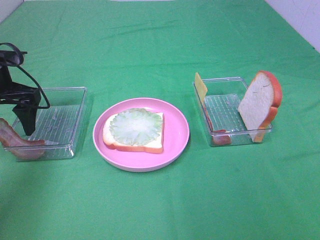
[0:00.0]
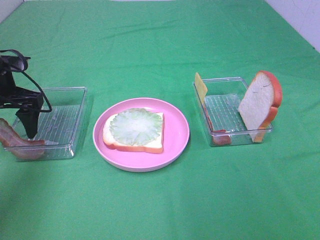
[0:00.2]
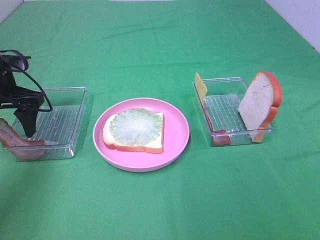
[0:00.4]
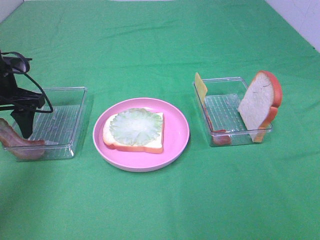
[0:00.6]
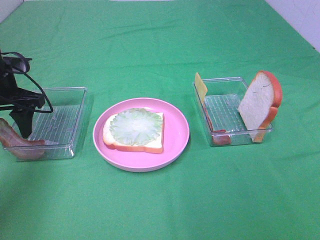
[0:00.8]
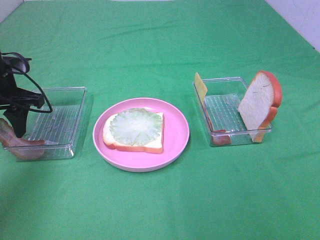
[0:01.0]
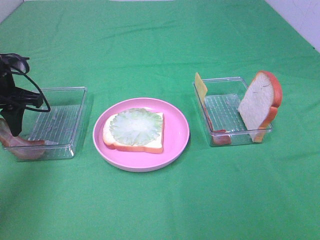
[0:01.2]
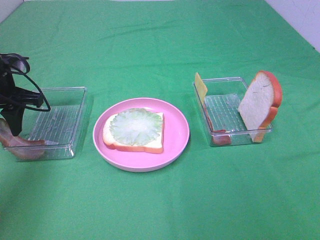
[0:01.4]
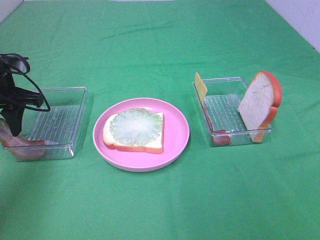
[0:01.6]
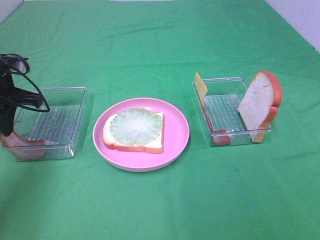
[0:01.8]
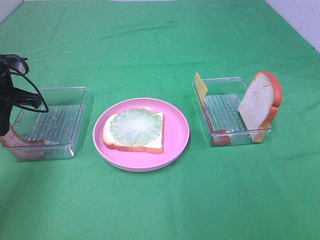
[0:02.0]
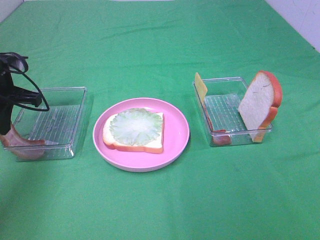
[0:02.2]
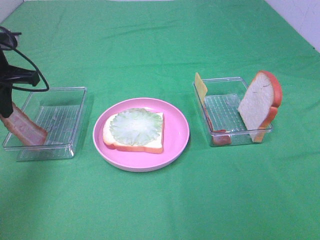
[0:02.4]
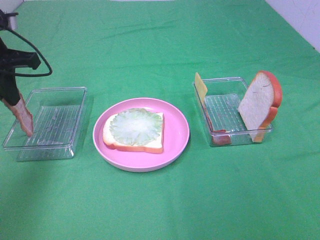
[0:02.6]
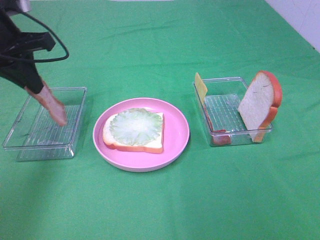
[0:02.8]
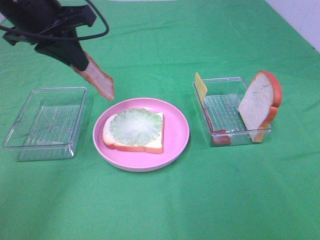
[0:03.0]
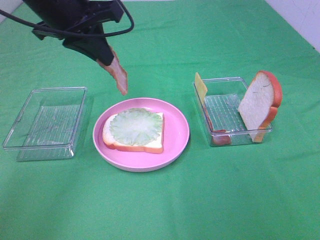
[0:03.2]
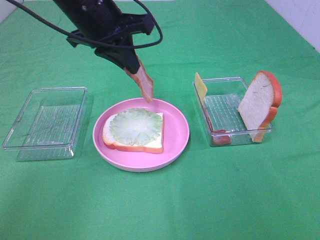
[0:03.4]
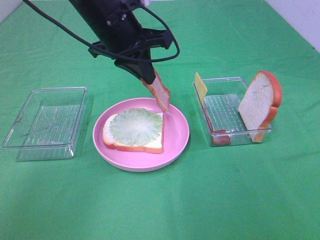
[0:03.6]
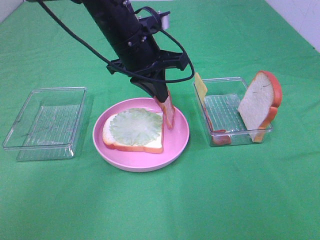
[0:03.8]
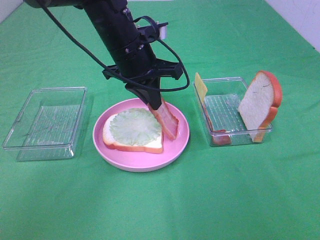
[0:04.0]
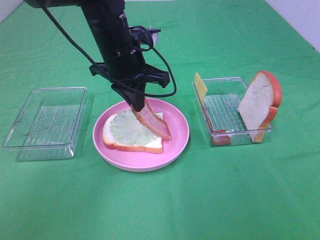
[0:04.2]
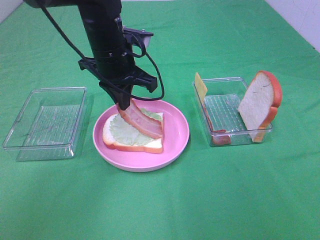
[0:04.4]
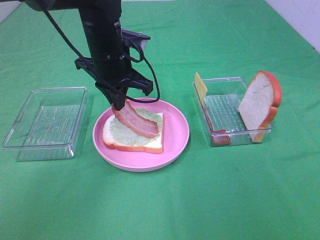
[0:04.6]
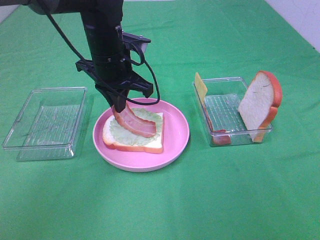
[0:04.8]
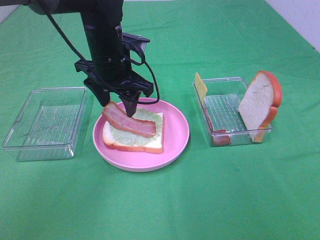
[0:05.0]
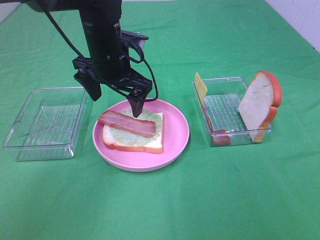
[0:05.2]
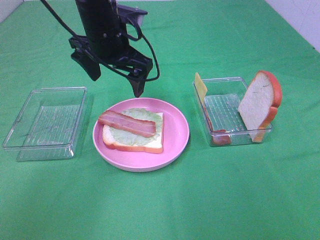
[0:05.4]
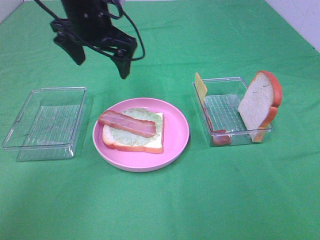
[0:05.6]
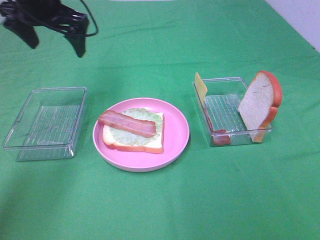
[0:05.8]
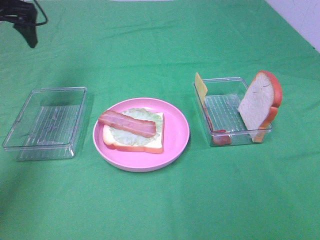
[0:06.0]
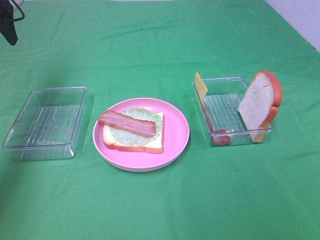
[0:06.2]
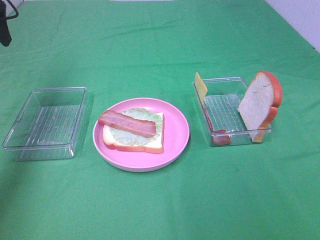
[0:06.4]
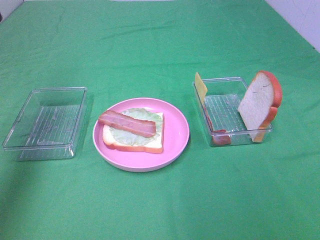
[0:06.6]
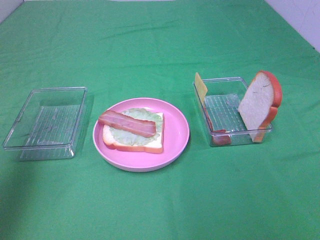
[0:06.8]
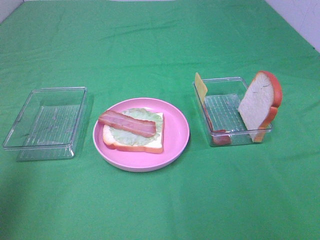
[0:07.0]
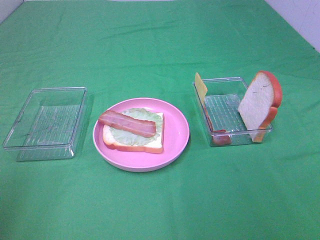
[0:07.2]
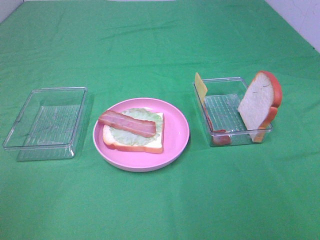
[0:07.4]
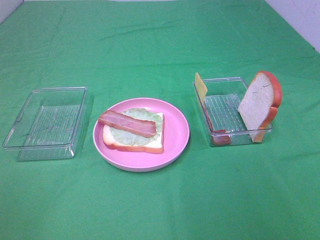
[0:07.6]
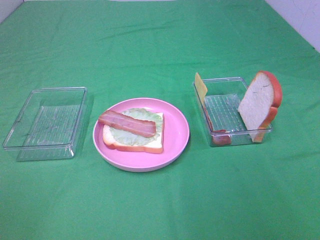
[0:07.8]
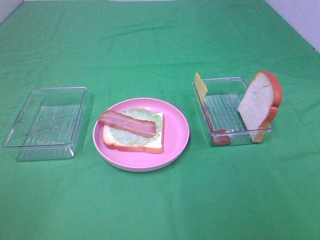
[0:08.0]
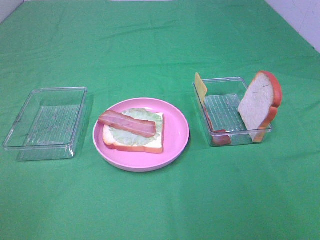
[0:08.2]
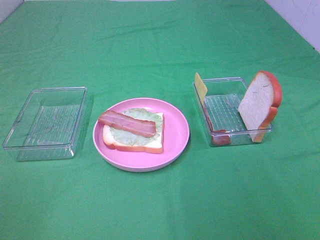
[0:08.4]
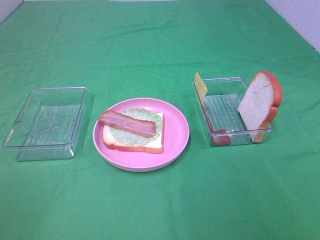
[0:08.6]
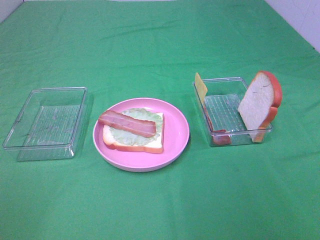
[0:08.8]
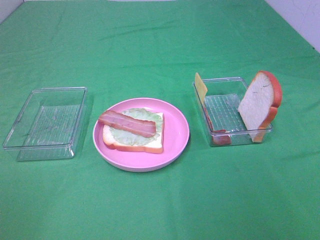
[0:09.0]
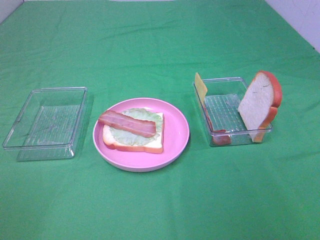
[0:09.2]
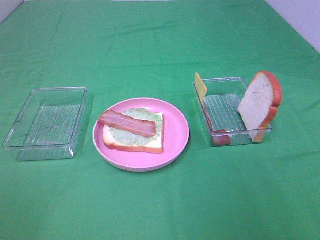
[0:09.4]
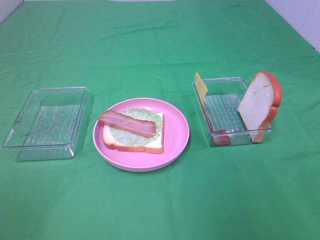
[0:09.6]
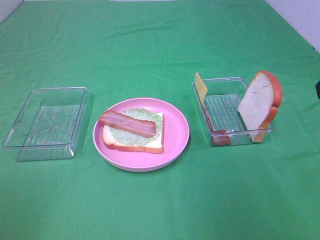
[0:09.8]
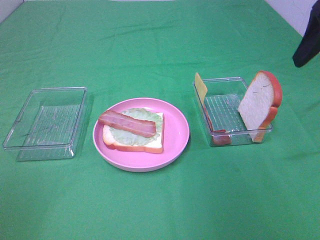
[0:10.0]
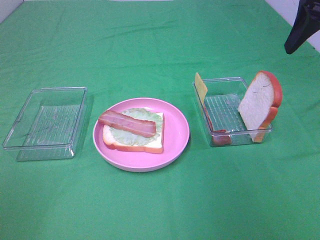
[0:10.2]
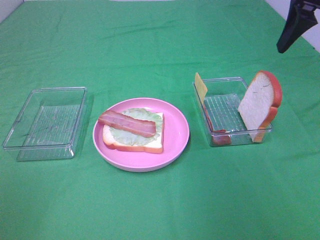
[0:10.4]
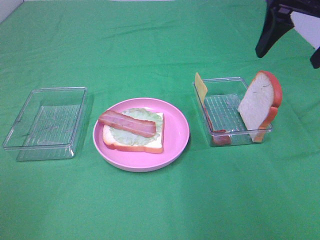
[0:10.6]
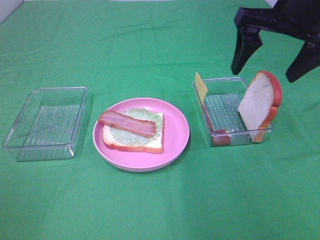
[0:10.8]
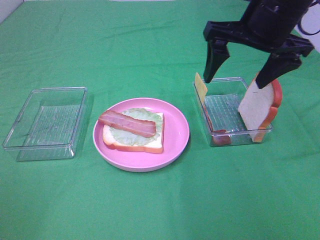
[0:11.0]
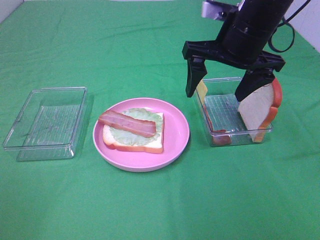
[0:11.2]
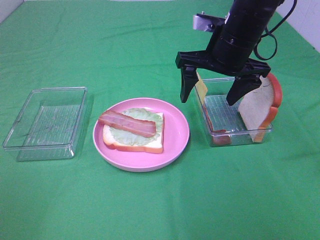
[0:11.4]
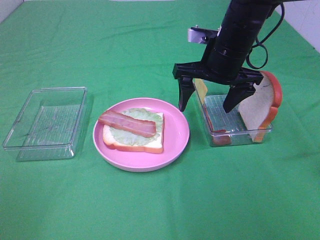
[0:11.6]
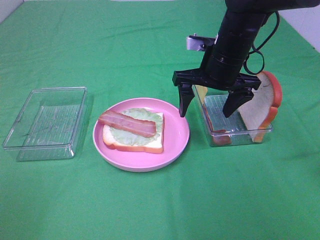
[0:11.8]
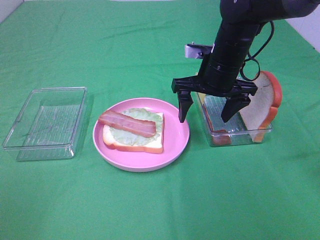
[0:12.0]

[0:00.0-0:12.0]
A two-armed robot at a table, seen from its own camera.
Task of the whole recording: Make sandwiches.
Step, 0:00.0 to 0:02.2: Left hand:grab the bacon.
Step, 0:02.4 to 0:05.0: Left hand:place bacon on lettuce slice.
0:00.0 to 0:01.6: The left gripper closes up.
0:01.6 to 0:03.0: The left gripper goes roughly 15 cm upward and to the right, and closes.
0:03.0 to 0:04.4: The left gripper heads to the right and downward, covering some 15 cm.
0:04.4 to 0:06.0: The left gripper moves to the left, roughly 25 cm, and opens.
0:06.0 to 0:07.6: The left gripper heads backward, covering approximately 50 cm.
0:09.0 to 0:10.4: The right gripper travels forward by some 30 cm.
0:10.4 to 0:12.0: The right gripper goes approximately 20 cm downward and to the left.

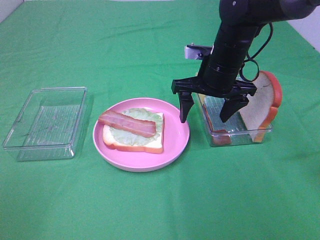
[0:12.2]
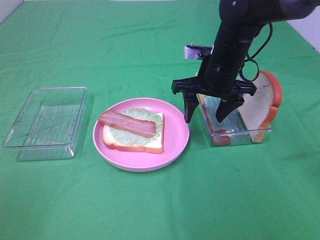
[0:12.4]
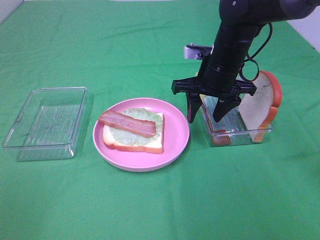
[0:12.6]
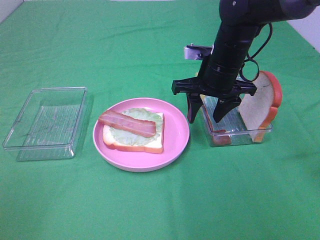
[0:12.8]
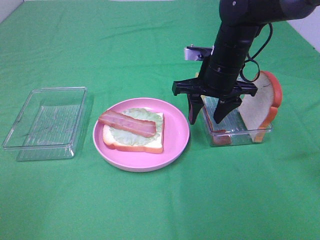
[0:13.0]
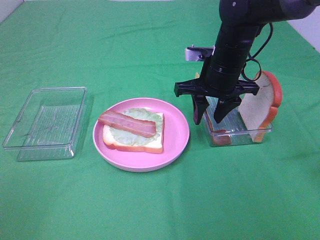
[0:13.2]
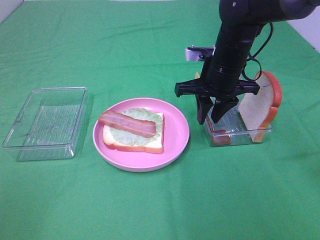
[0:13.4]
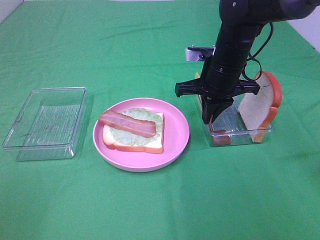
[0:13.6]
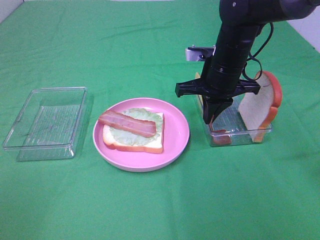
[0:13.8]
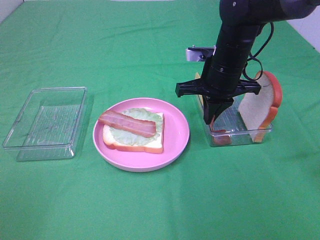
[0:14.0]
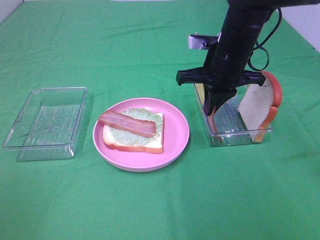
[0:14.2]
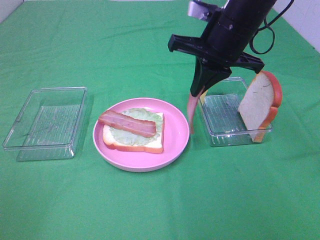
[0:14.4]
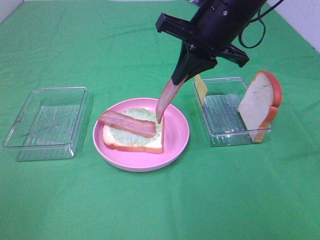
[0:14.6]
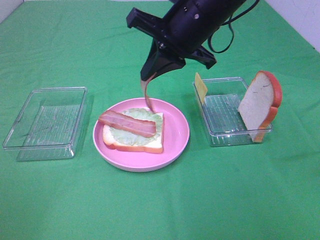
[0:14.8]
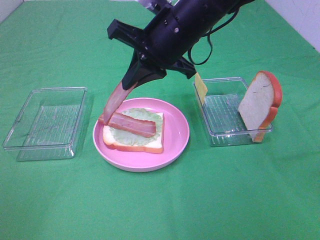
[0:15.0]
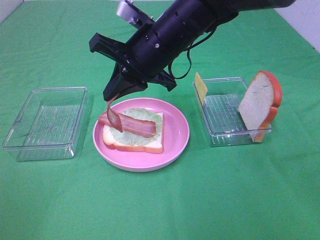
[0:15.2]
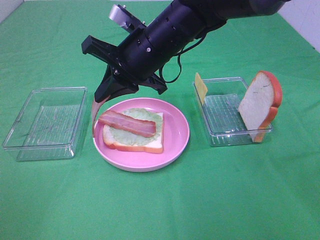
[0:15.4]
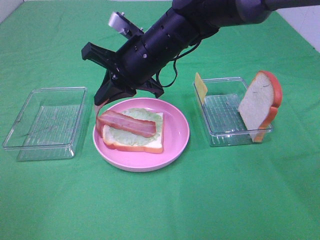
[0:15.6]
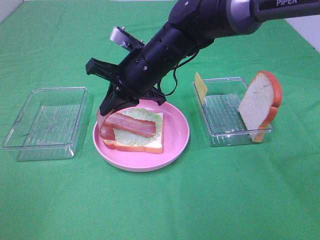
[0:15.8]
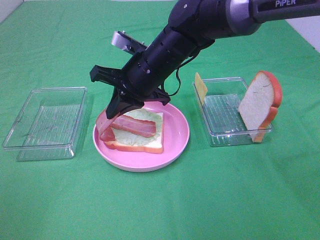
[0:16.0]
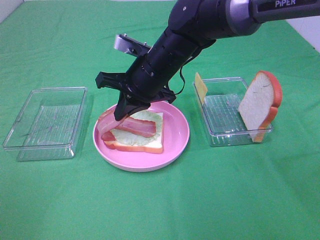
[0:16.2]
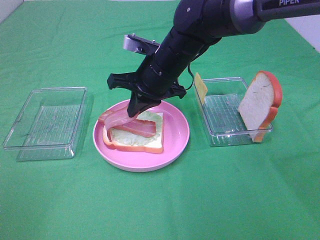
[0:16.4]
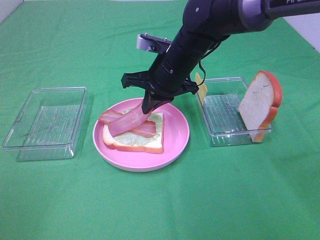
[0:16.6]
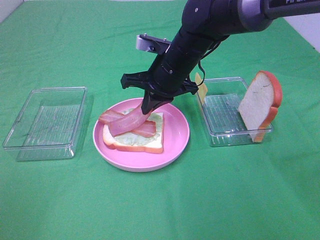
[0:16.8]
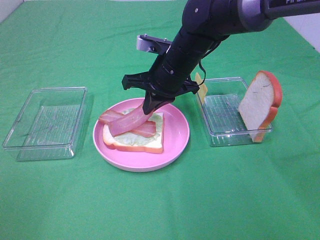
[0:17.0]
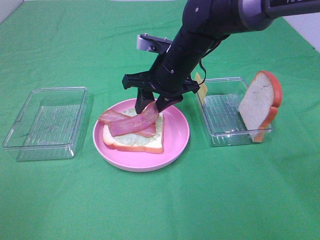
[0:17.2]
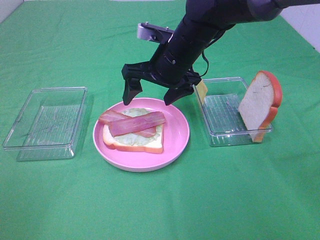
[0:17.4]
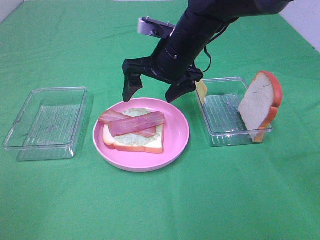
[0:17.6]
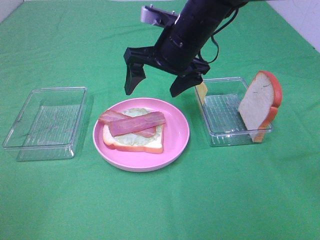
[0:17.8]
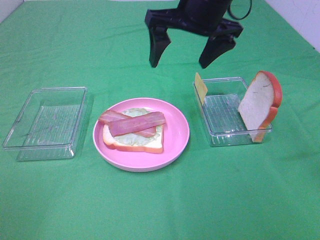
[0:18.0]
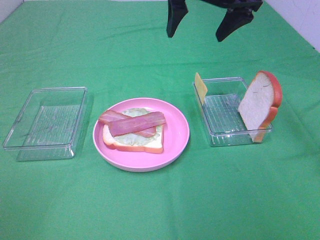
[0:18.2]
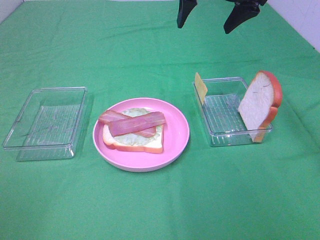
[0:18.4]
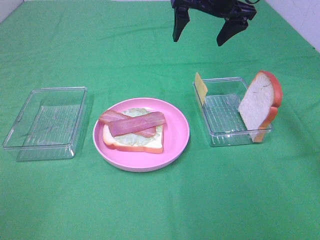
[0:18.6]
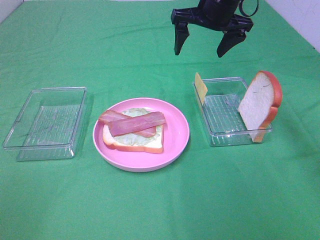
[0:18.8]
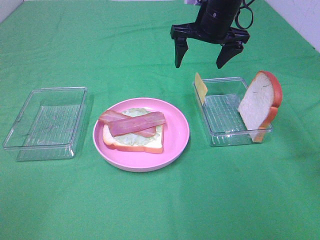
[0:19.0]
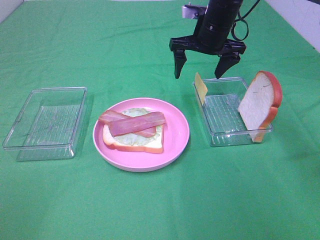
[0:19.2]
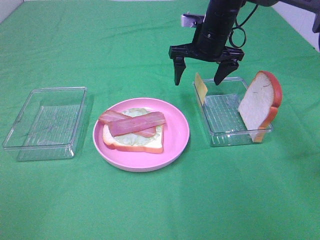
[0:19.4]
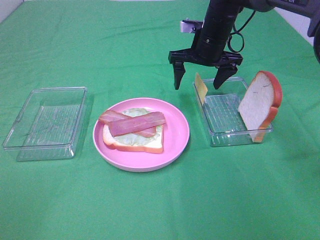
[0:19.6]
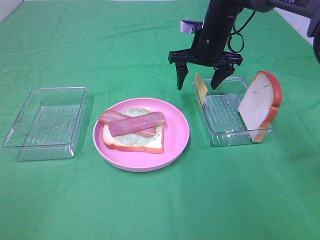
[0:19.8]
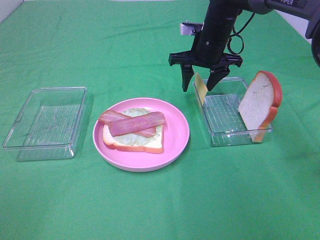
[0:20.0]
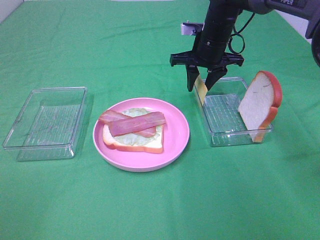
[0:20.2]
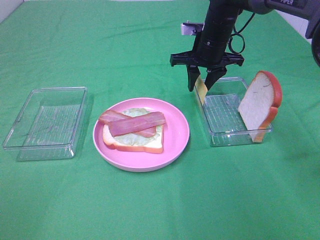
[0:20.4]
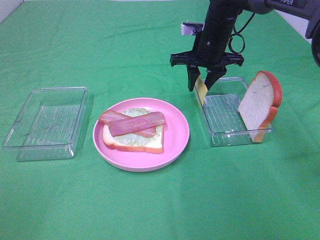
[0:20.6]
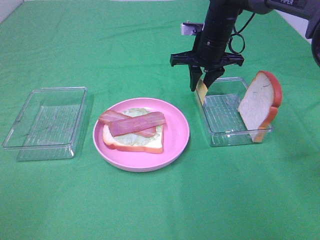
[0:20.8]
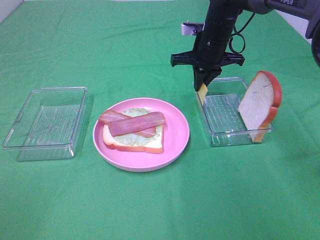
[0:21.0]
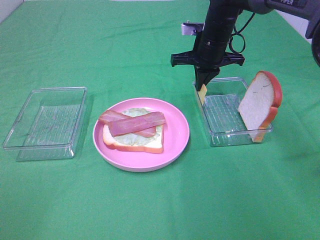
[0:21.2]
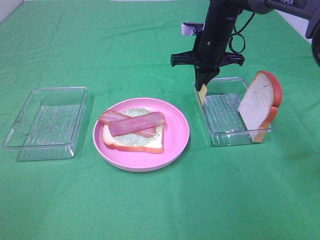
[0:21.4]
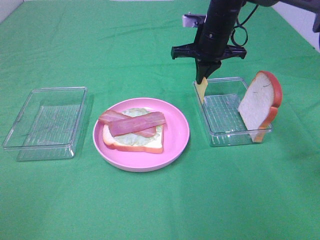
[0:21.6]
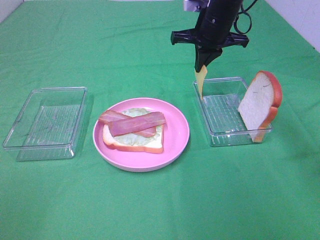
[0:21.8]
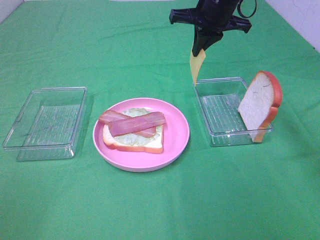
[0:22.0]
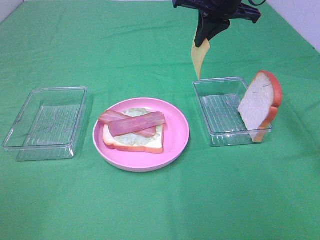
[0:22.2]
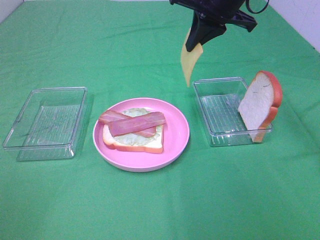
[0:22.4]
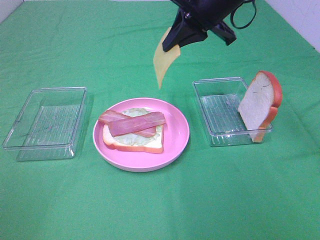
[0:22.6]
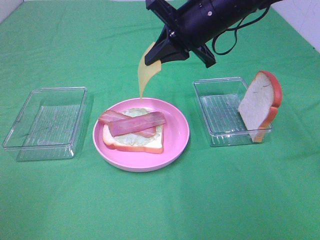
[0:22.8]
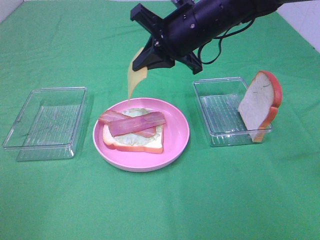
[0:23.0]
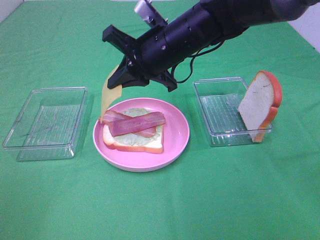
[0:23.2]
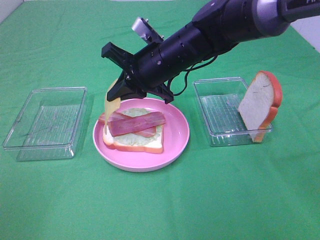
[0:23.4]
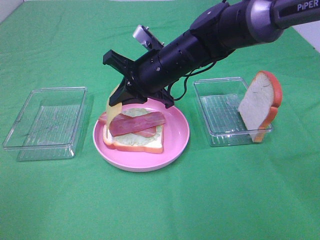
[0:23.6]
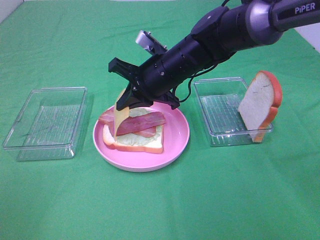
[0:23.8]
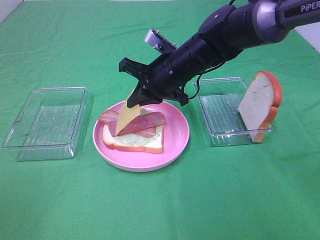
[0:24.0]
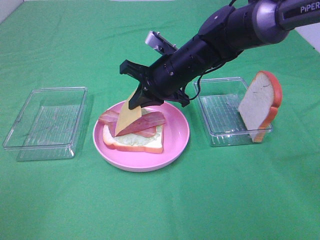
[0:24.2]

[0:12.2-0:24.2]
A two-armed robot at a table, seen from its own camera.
Task of the whole recording: Make sandwiches.
Step, 0:14.2 to 0:17.2: Right hand:place bacon on bacon.
Step, 0:17.4 to 0:21.4: Right hand:grab the cheese slice.
0:12.2 to 0:13.8: The right gripper closes its fingers.
0:13.8 to 0:15.2: The right gripper heads to the left and upward, covering some 10 cm.
0:15.2 to 0:16.6: The right gripper shifts roughly 5 cm downward.
0:16.6 to 0:18.2: The right gripper is displaced upward and to the right by approximately 20 cm, and opens up.
0:18.2 to 0:19.8: The right gripper moves downward and forward, roughly 15 cm.
0:19.8 to 0:21.2: The right gripper closes.
0:21.2 to 0:22.6: The right gripper shifts about 15 cm upward and backward.
0:22.6 to 0:24.2: The right gripper shifts approximately 15 cm downward and to the left.
